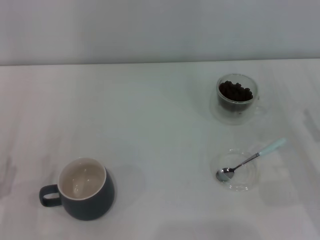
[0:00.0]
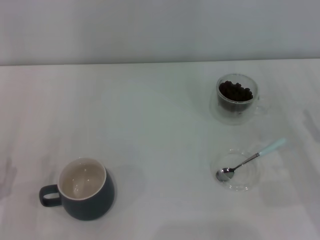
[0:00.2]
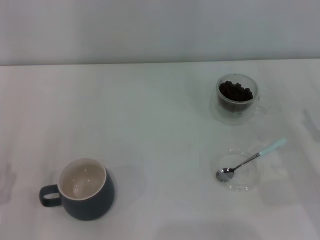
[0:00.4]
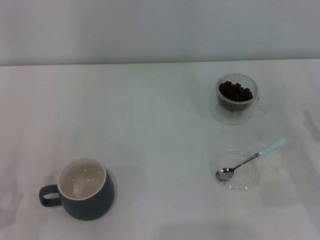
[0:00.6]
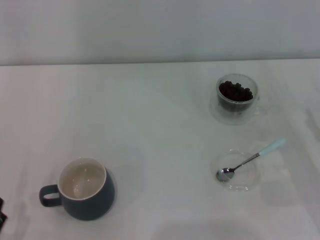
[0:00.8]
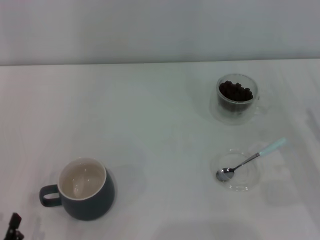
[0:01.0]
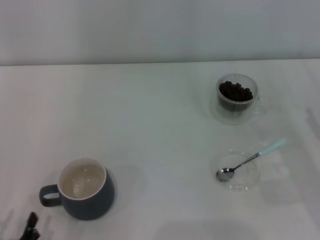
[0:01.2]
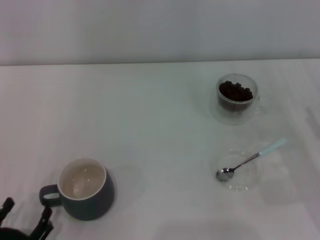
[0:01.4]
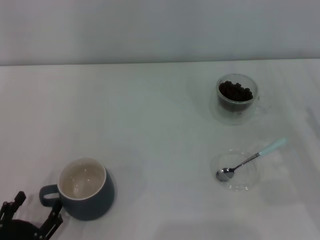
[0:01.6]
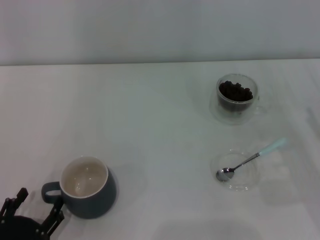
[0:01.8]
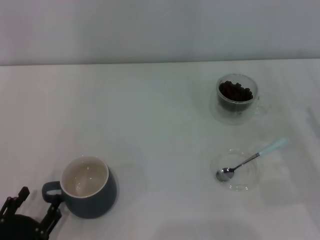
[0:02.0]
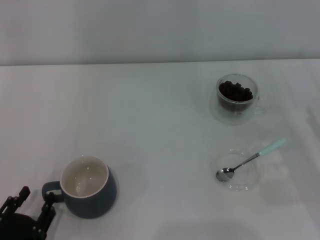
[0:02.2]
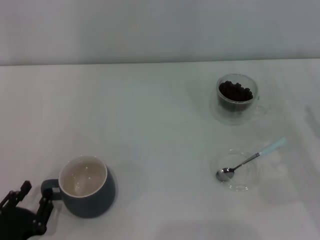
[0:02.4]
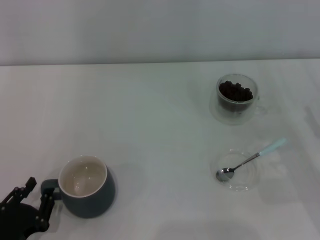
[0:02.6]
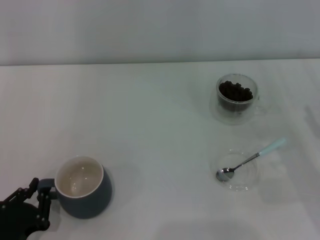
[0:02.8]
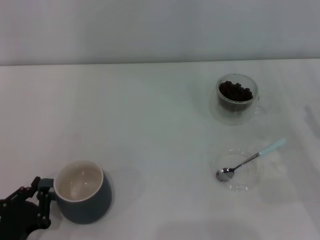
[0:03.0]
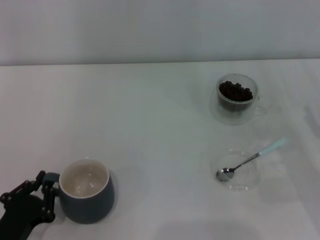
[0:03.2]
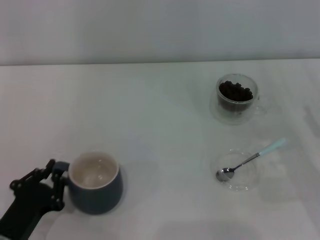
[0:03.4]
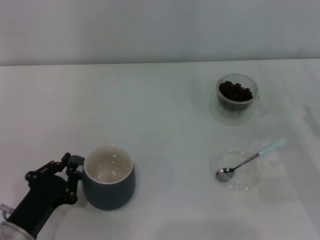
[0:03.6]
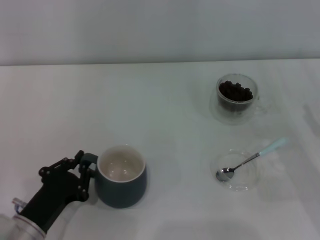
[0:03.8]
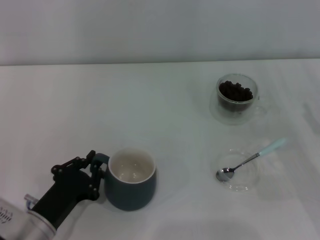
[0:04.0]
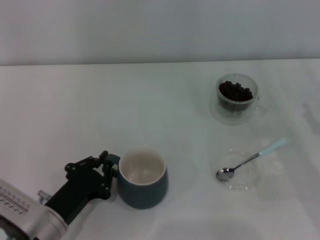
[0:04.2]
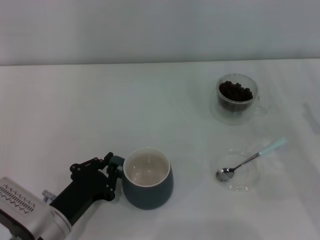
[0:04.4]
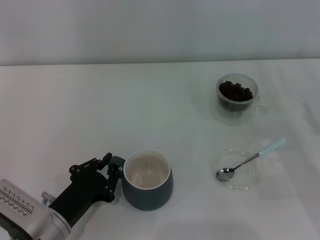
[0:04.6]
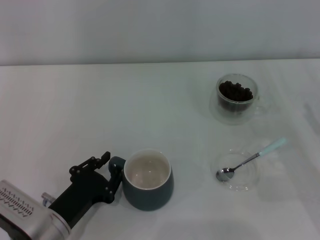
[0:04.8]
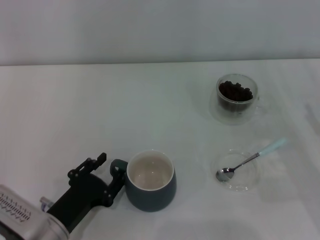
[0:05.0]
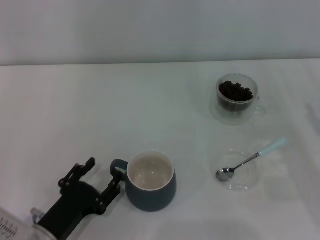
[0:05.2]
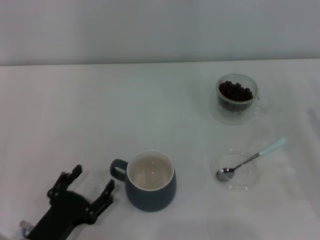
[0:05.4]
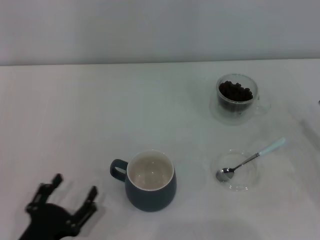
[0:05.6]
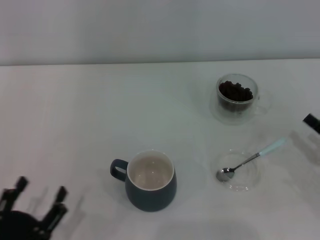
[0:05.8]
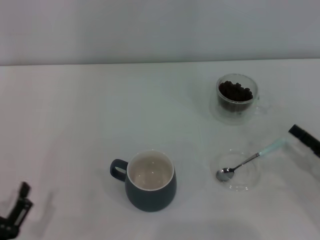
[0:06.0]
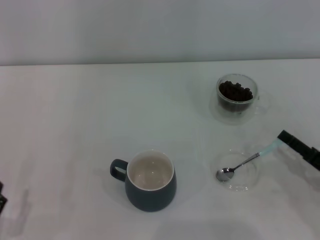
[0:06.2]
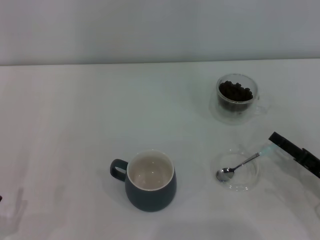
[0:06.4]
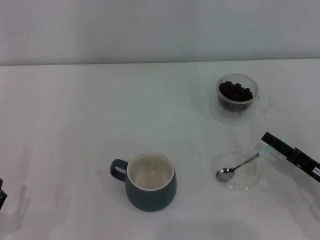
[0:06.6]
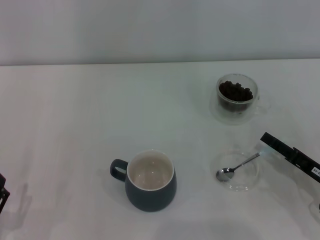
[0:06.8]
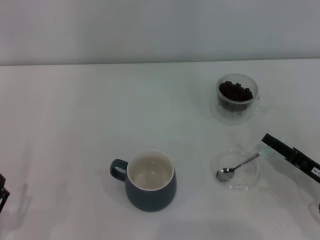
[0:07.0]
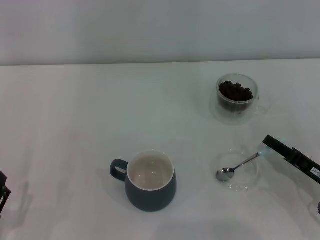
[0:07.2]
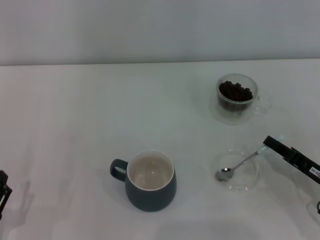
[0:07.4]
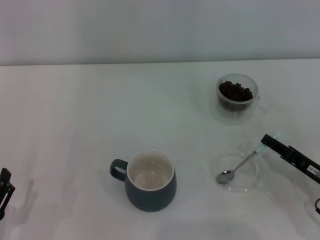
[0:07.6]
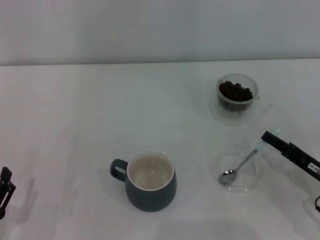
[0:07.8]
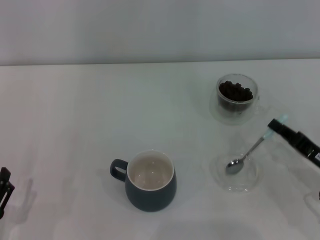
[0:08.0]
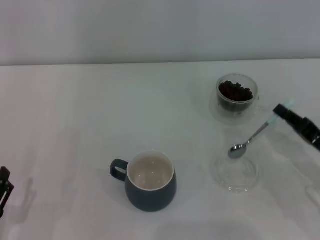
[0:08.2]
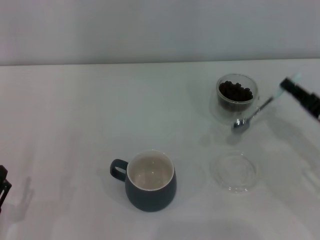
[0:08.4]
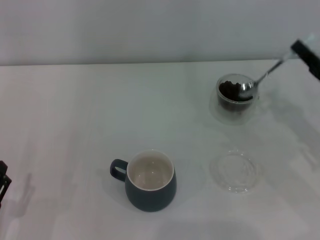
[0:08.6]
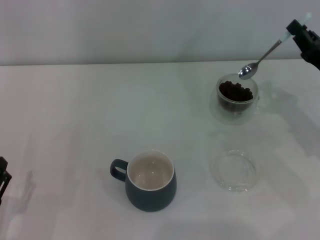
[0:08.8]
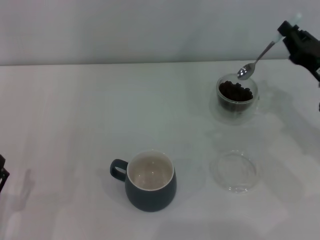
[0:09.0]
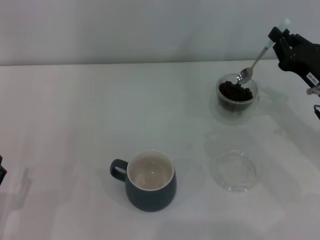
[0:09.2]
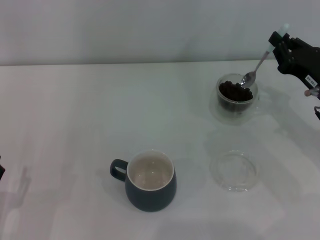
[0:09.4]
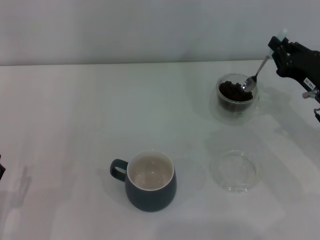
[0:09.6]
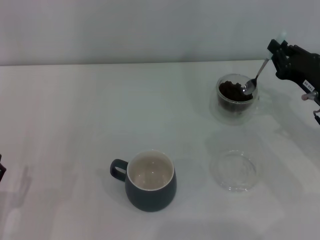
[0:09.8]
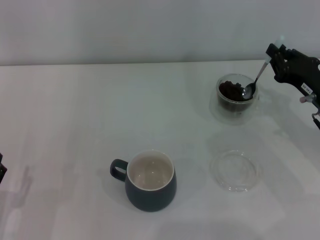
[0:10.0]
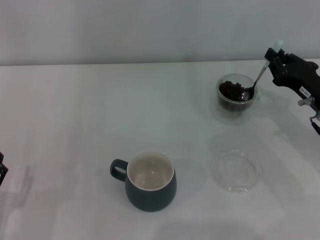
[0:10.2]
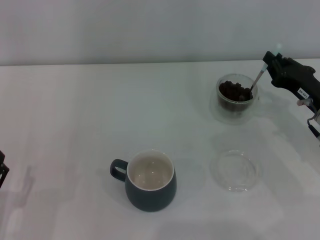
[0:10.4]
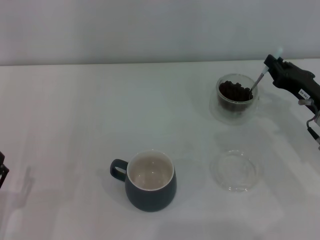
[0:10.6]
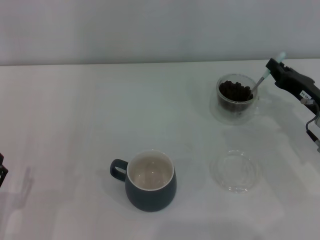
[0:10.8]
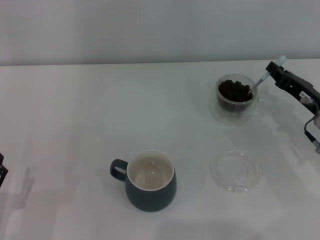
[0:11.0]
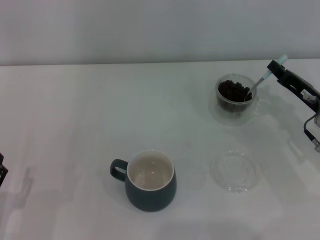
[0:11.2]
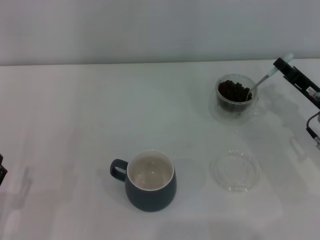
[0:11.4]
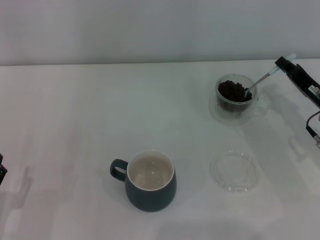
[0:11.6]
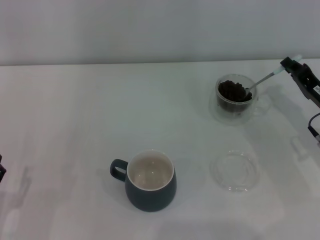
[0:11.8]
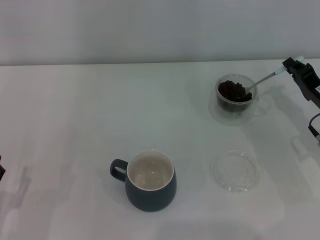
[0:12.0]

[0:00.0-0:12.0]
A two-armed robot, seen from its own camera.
Task of the whole recording: Use a blue spoon to take out the coffee beans from the glass and pour them into the gray cup.
Step, 0:00.0 to 0:05.2: Move the cup to the center of view with the left gripper.
Step, 0:05.4 to 0:08.2: Pick up the spoon with the right gripper.
0:00.0 to 0:01.6: The left gripper goes some 5 cm backward.
0:01.6 to 0:03.0: The left gripper closes its fingers.
0:03.0 to 0:04.4: The left gripper shifts approximately 10 cm to the right and forward.
0:04.4 to 0:06.0: The left gripper shifts some 15 cm backward and to the left, and opens. The right gripper shifts by approximately 5 cm.
0:06.0 to 0:07.6: The right gripper closes.
0:07.6 to 0:09.0: The right gripper travels forward and upward by approximately 15 cm.
0:09.0 to 0:10.4: The grippers stay close to where they were, moving slightly.

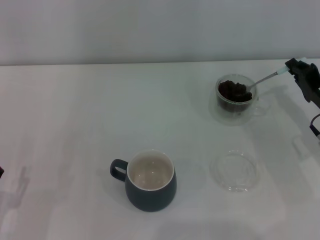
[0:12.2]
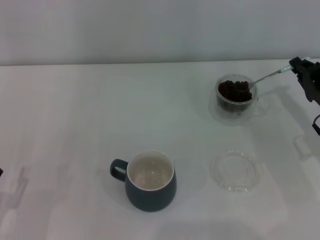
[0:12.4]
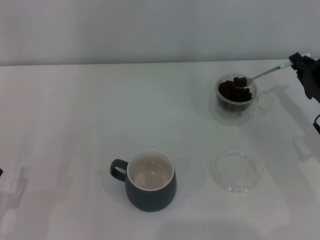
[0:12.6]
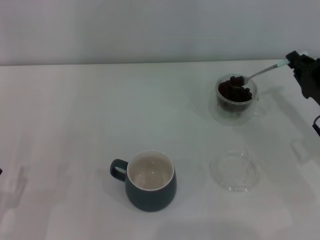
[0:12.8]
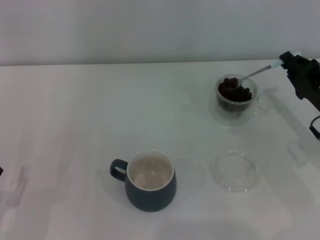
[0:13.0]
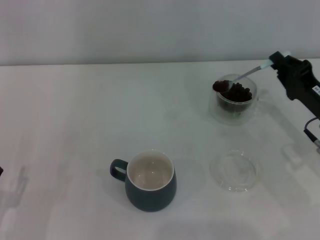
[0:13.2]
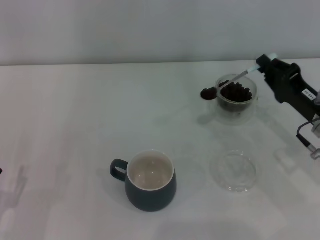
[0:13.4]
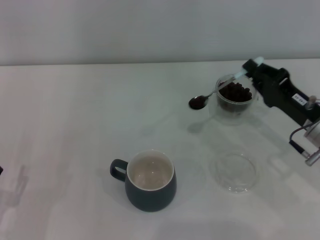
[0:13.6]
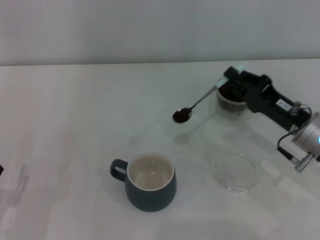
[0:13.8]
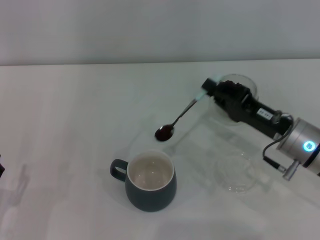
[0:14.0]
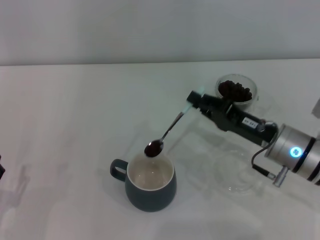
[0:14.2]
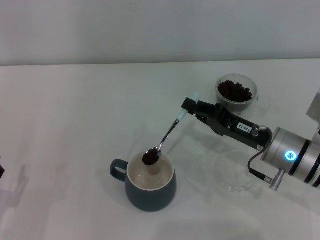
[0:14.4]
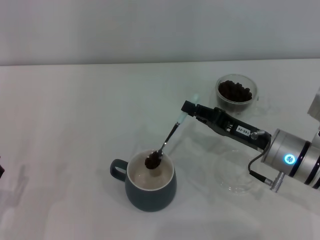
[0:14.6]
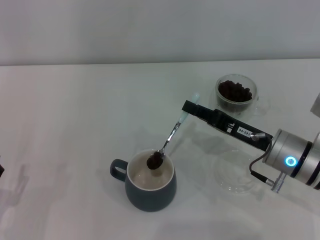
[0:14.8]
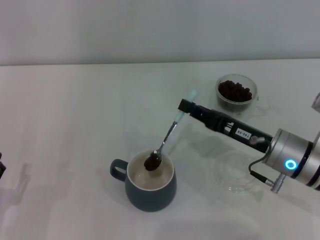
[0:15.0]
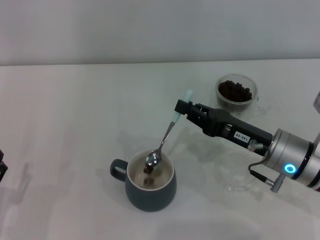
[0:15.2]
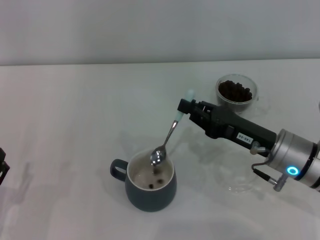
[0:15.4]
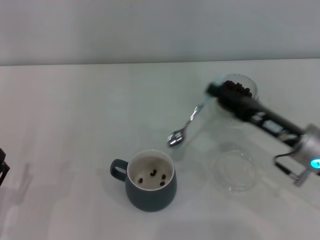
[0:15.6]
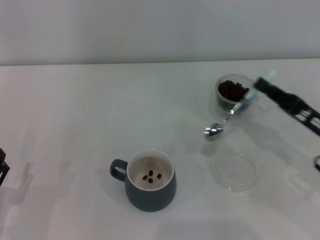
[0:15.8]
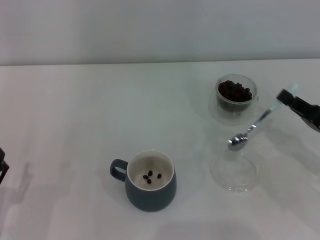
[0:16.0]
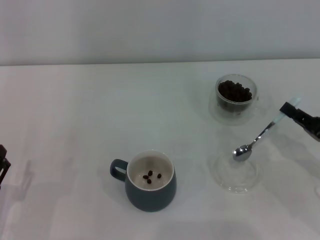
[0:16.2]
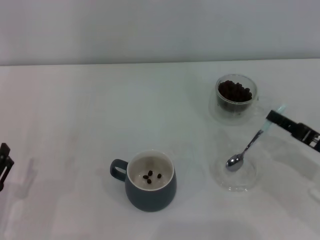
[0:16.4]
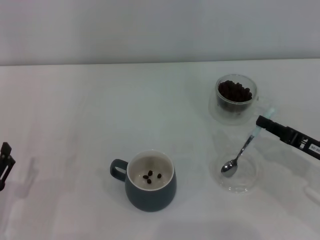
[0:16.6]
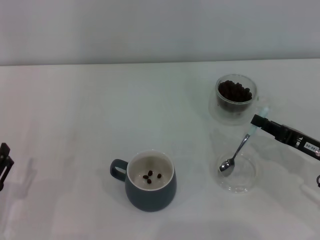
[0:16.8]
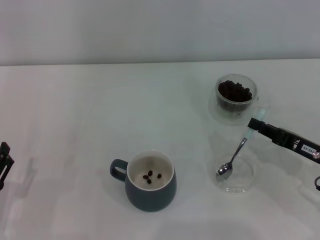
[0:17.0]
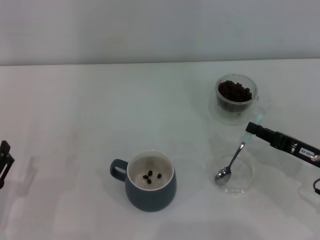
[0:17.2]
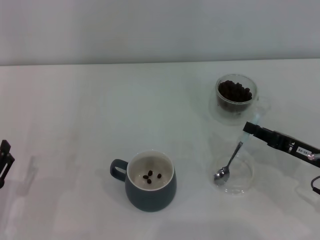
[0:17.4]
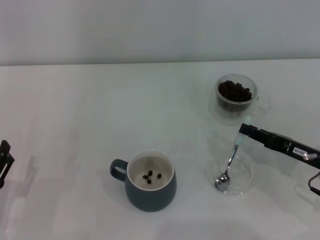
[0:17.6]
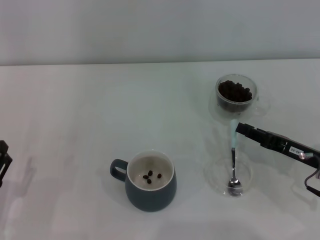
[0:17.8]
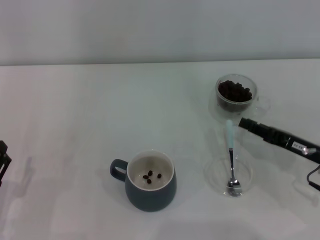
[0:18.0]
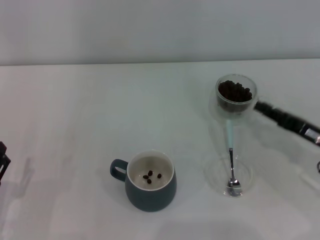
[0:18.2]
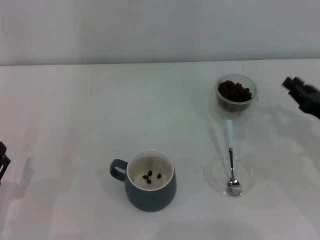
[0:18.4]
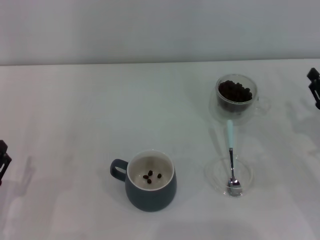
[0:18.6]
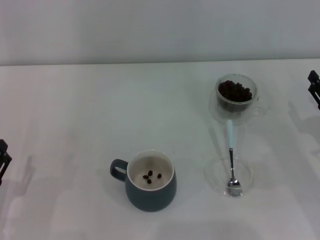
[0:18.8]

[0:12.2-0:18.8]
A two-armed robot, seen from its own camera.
Task of the whole recording: Use a blue spoon to take out the coffee beans from the glass and pour them into the gray cup.
Step, 0:12.2 to 0:15.2: Scoop a spoonful of beans into the cup with the right gripper.
Step, 0:15.6 to 0:18.2: Place the spoon back in its original place with the right gripper.
0:12.2 to 0:13.8: The right gripper heads to the left, covering about 5 cm.
0:15.4 to 0:17.2: The right gripper heads to the right, covering about 10 cm.
0:17.2 to 0:18.8: The right gripper opens up.

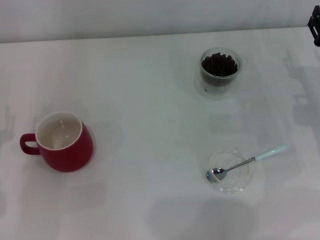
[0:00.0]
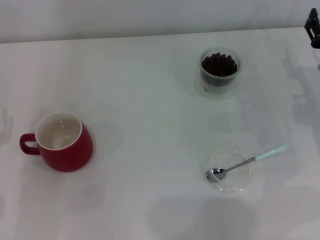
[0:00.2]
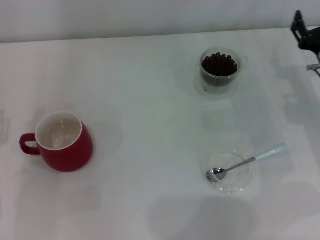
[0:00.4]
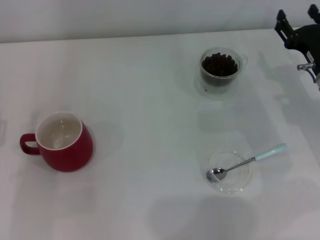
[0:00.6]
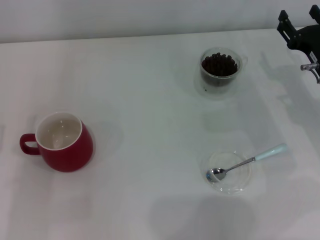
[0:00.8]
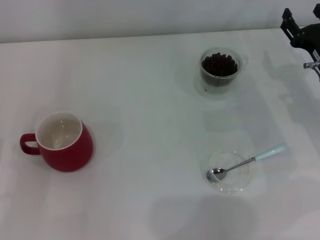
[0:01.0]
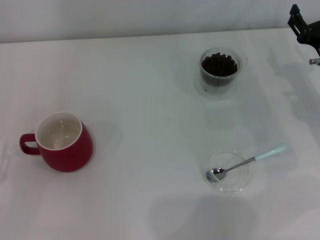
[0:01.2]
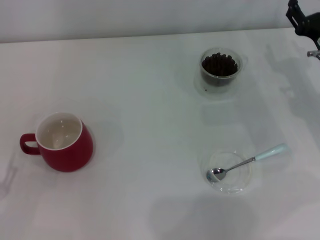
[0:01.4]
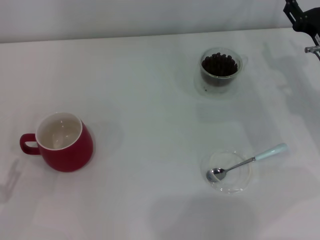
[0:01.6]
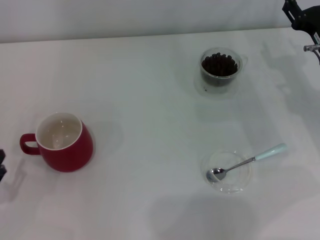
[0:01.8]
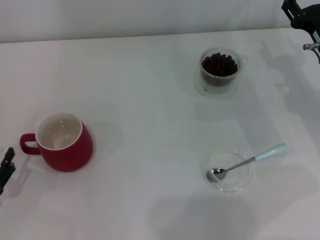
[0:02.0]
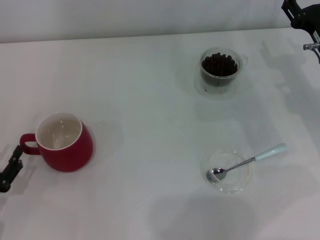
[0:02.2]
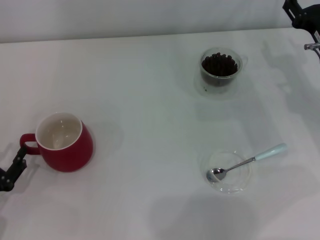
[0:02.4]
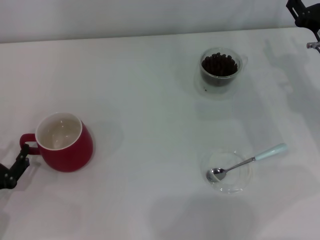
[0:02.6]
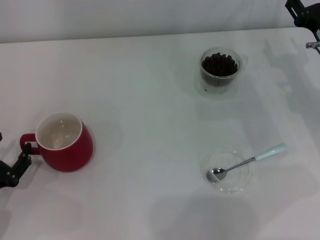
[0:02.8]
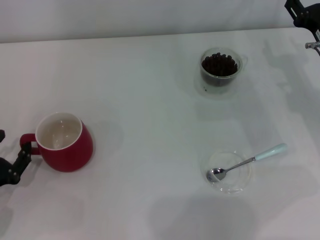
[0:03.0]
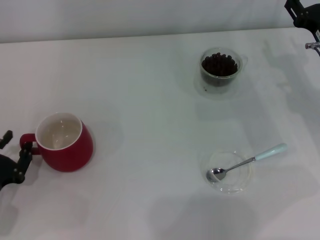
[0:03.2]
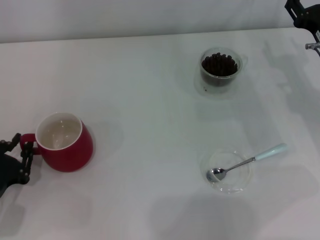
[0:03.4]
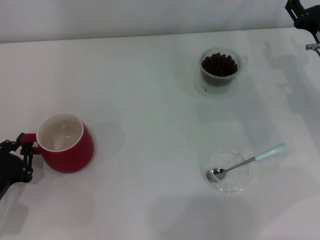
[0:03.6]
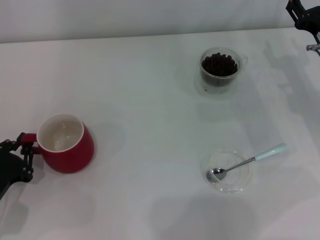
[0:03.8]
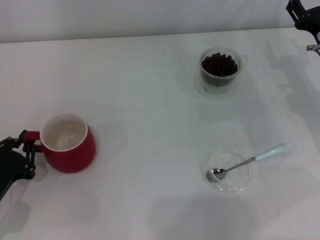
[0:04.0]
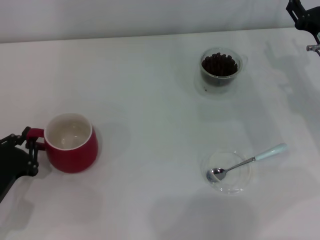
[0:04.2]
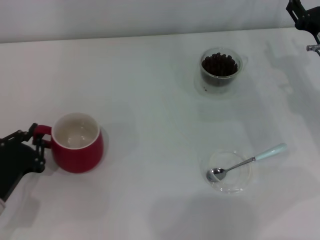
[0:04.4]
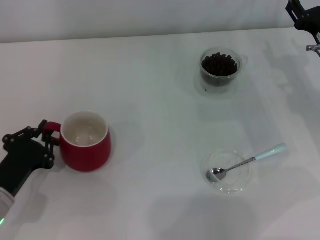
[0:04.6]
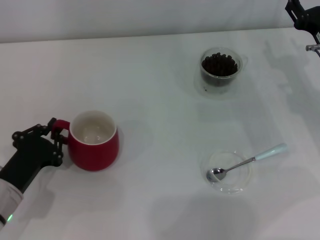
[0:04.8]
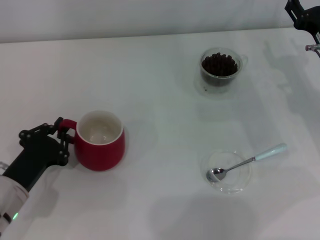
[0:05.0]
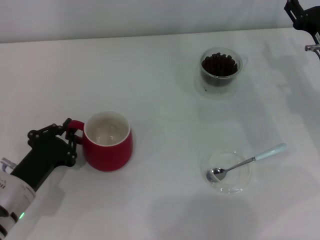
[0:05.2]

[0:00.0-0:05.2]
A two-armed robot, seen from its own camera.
Task of the whole recording: Use a blue spoon to take out the coffee beans from the glass and pour them into the red cup.
0:00.0 to 0:01.8: The left gripper travels backward by roughly 5 cm.
0:01.8 to 0:03.4: The left gripper moves about 5 cm, and closes its fingers.
0:03.4 to 0:05.2: The left gripper shifts about 5 cm to the right, and closes.
